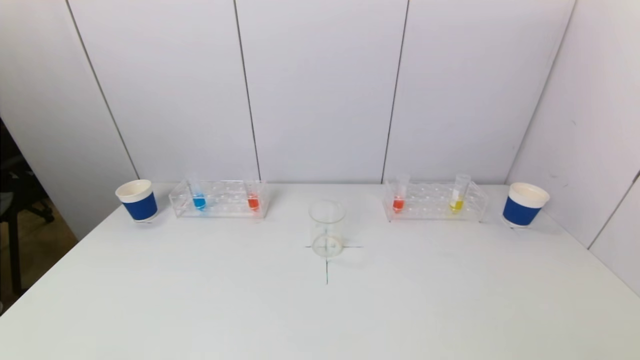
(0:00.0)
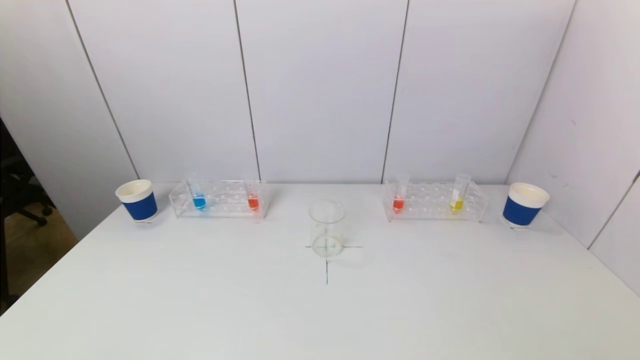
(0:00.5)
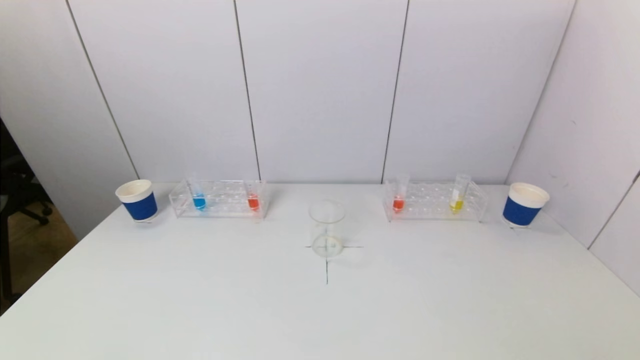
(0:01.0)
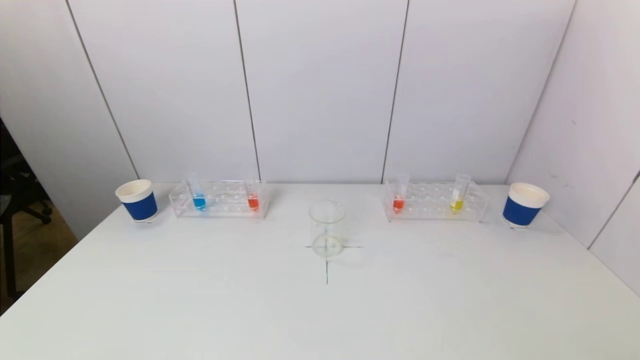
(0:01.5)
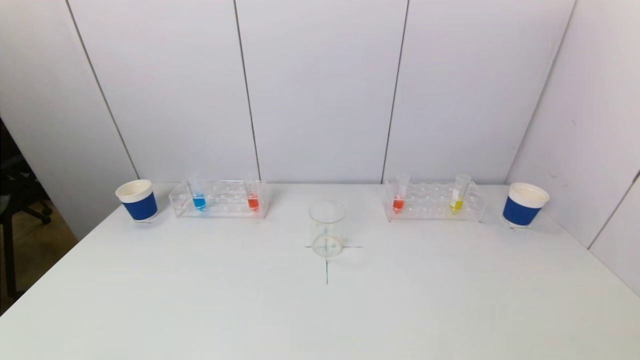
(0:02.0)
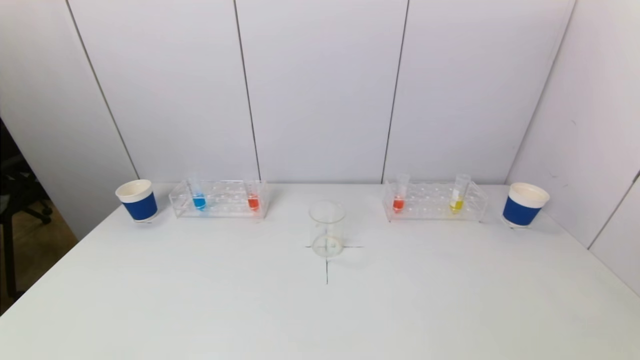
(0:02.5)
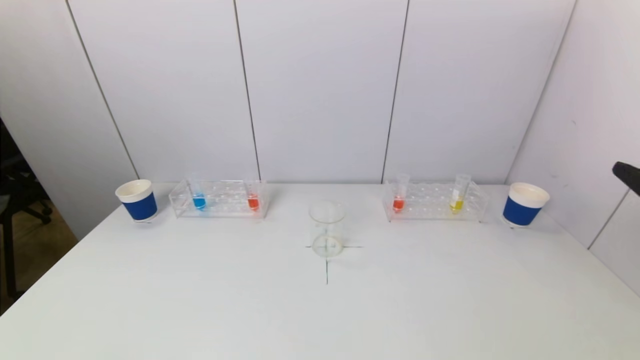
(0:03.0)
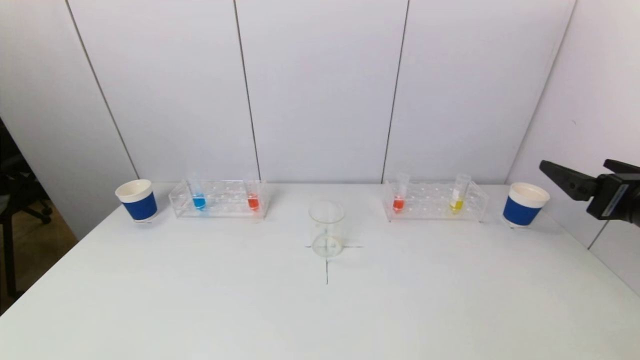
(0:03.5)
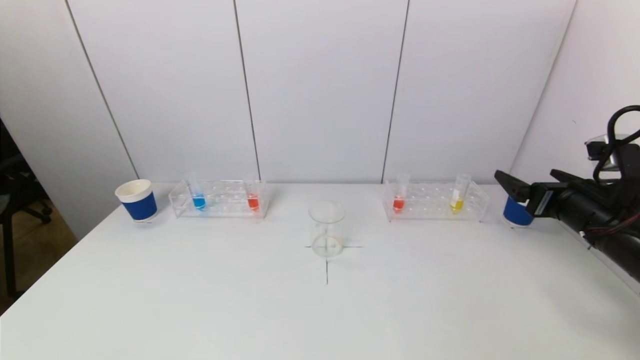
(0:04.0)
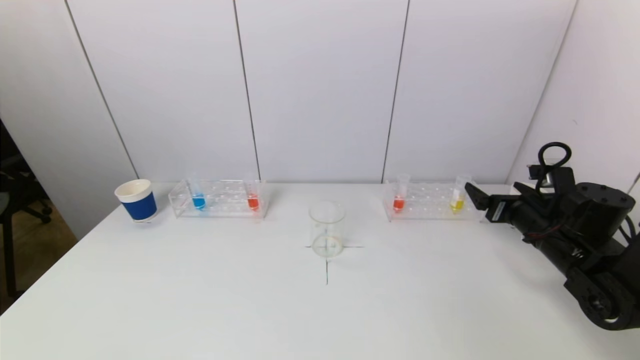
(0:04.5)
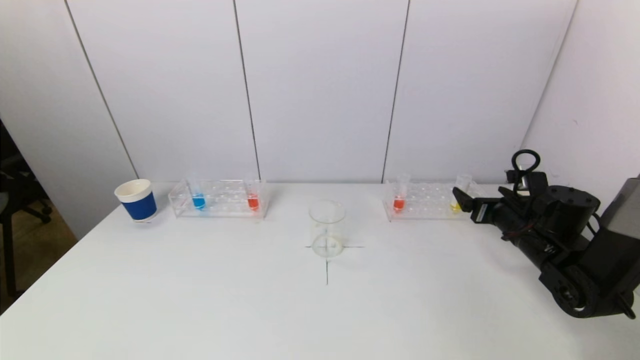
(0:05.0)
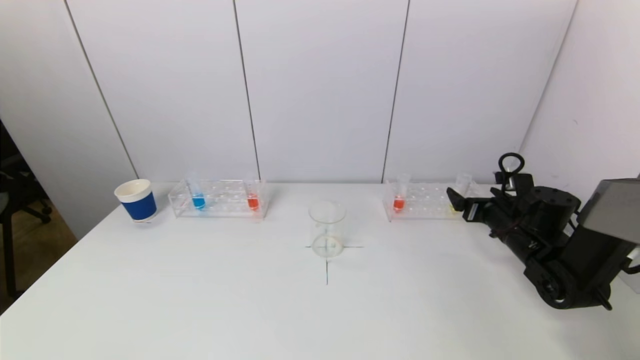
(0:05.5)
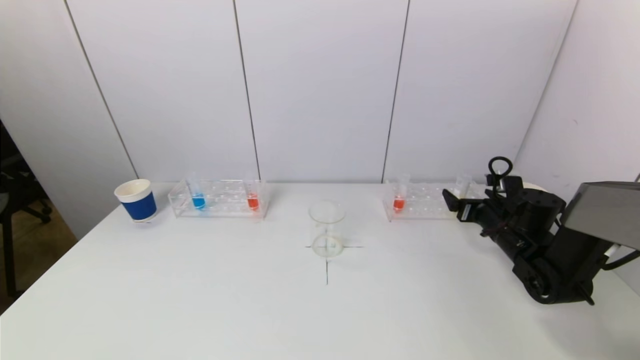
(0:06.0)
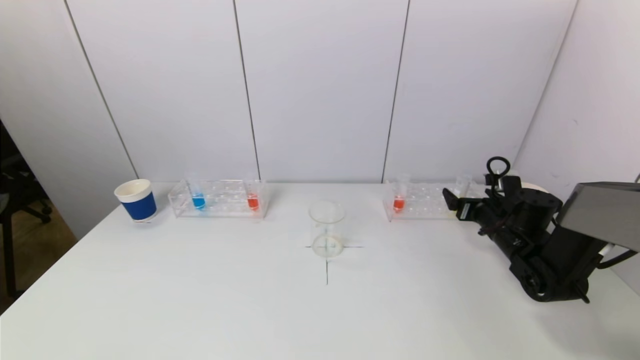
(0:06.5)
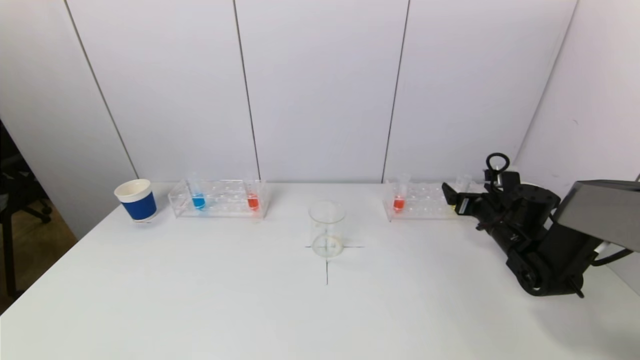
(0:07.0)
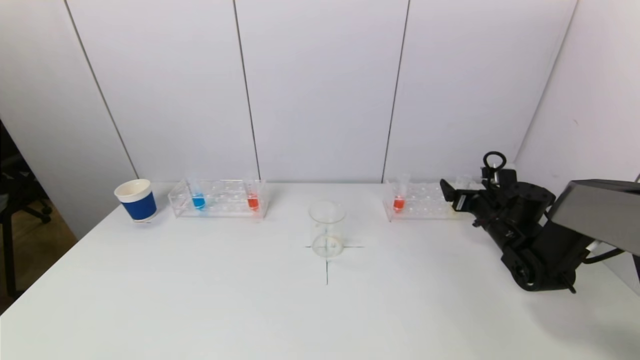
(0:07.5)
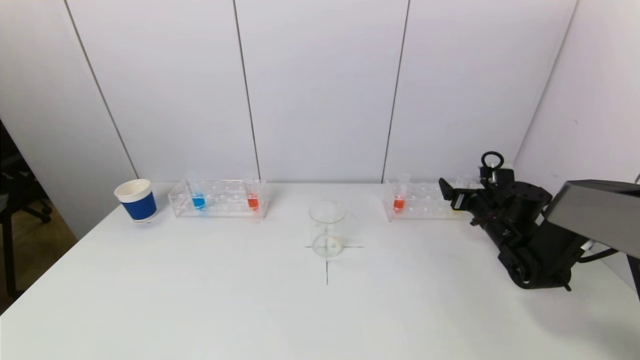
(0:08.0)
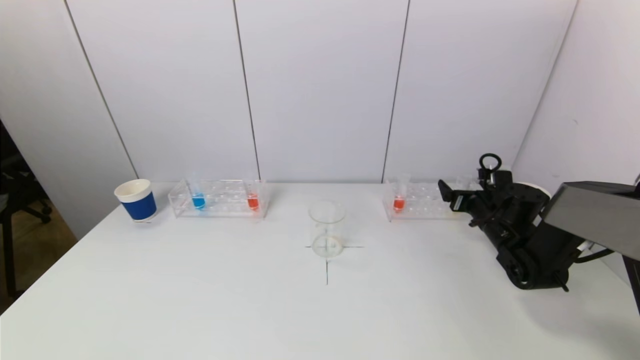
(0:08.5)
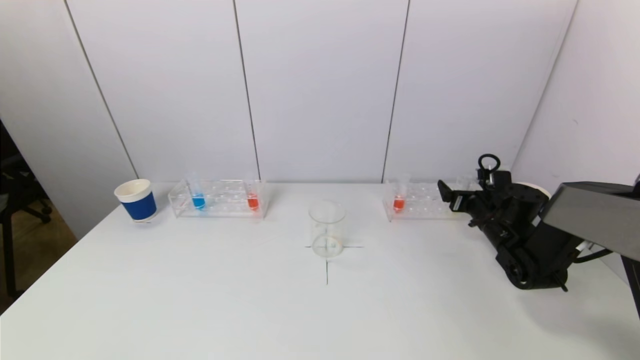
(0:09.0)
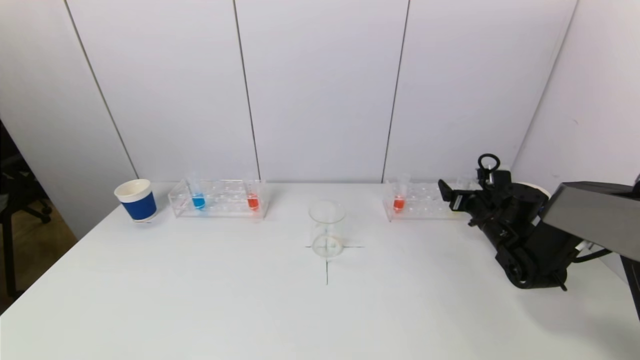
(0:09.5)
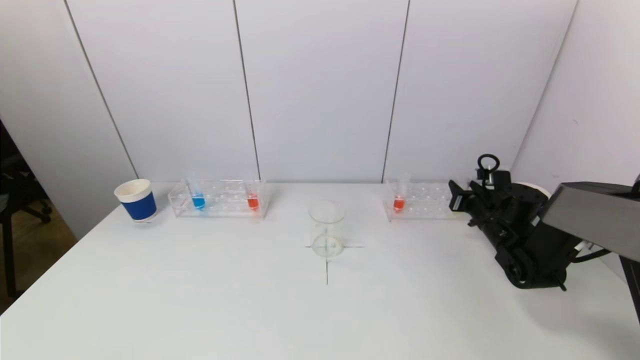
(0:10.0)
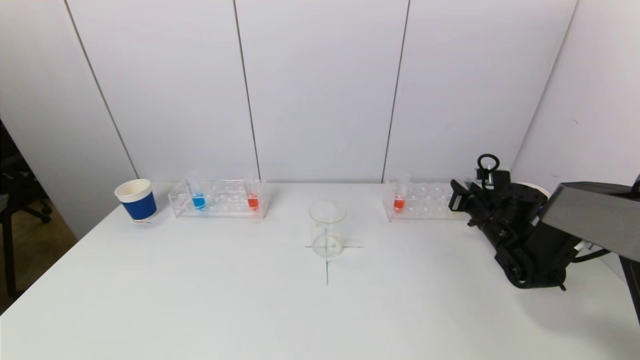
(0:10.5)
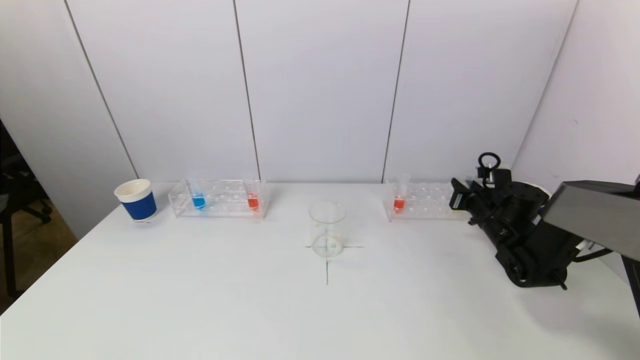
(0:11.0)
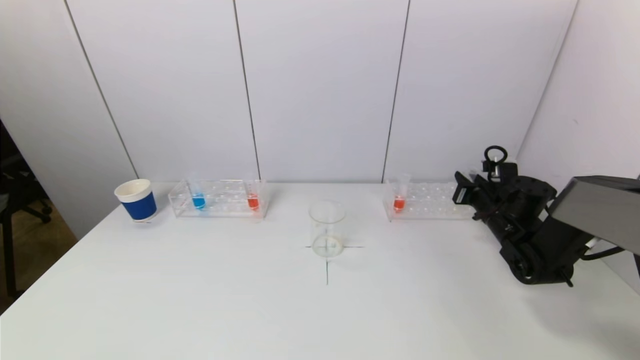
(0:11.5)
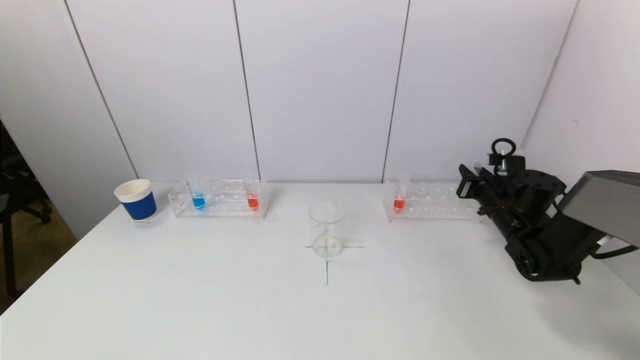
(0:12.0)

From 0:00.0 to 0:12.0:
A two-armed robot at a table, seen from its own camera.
Task of the whole recording: pick up a test tube with pigment on left test tube rack and a test tube with pigment on right test tube rack by grippers and pour them into the beaker.
Step, from 0:00.0 to 0:10.5: Grasp the yellow reagent with the right gripper.
From 0:02.0 to 0:04.0: The right gripper is displaced forward by roughly 30 cm.
From 0:04.0 to 0:06.0: The right gripper heads downward and forward, covering approximately 15 cm.
From 0:06.0 to 0:08.0: The grippers move only a little.
From 0:08.0 to 0:10.0: The right gripper closes up.
From 0:10.0 to 0:12.0: There are only small adjustments of the grippers.

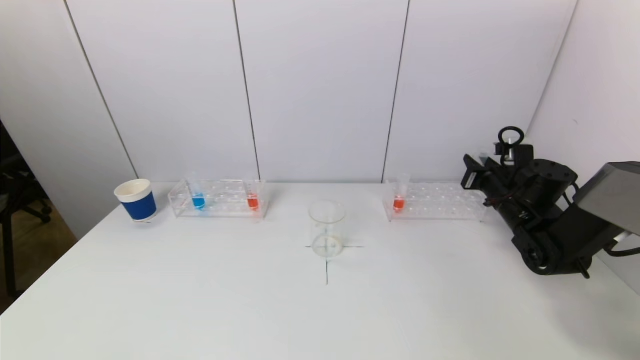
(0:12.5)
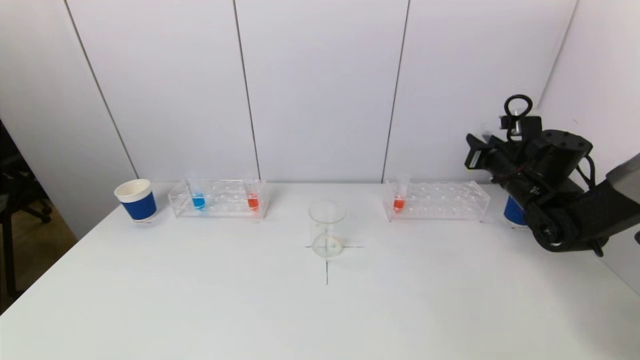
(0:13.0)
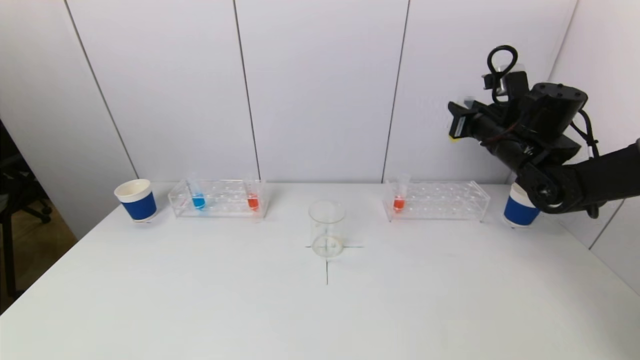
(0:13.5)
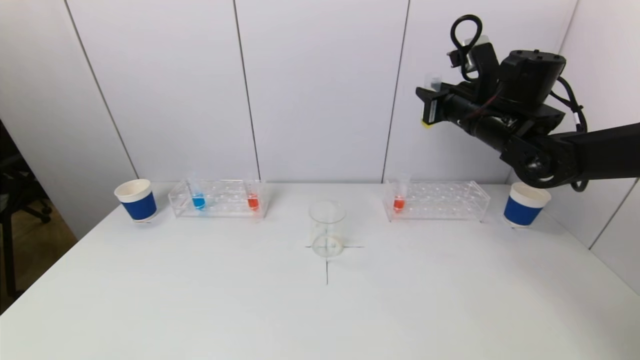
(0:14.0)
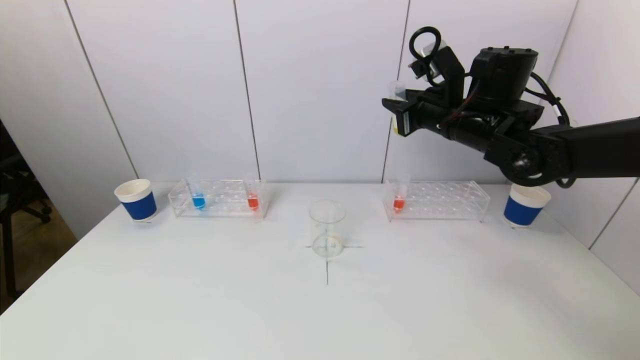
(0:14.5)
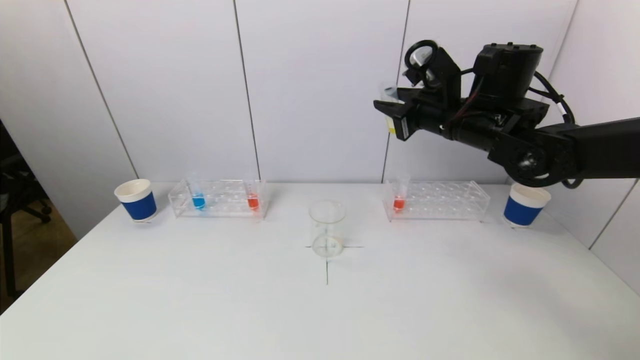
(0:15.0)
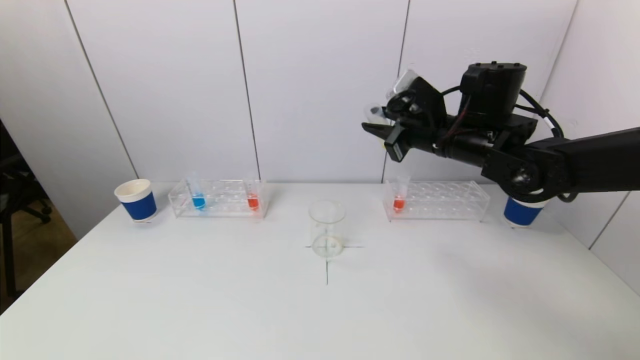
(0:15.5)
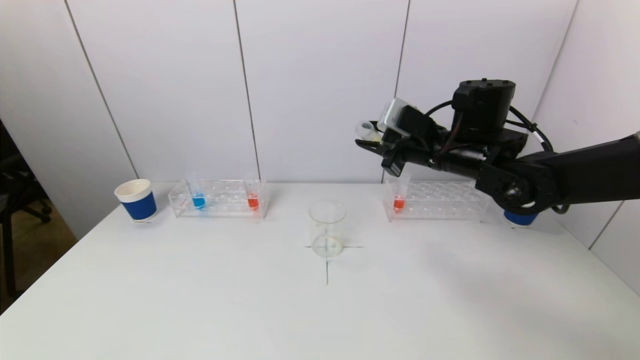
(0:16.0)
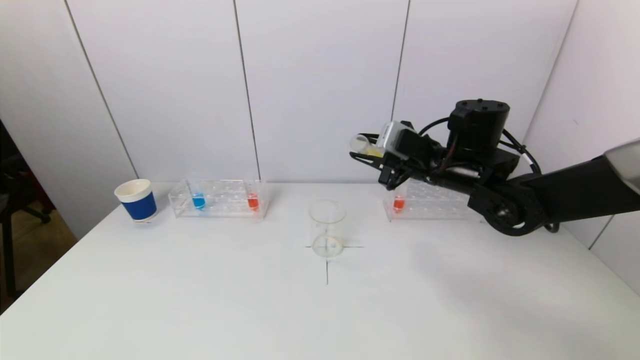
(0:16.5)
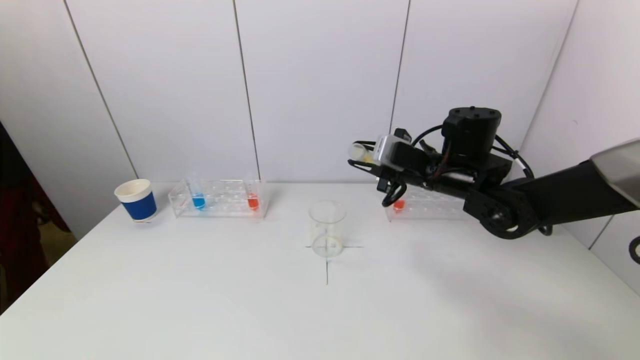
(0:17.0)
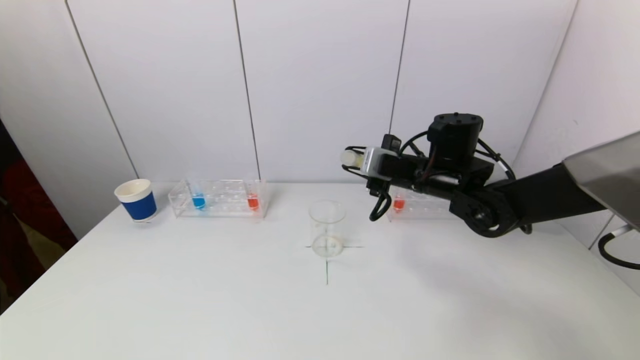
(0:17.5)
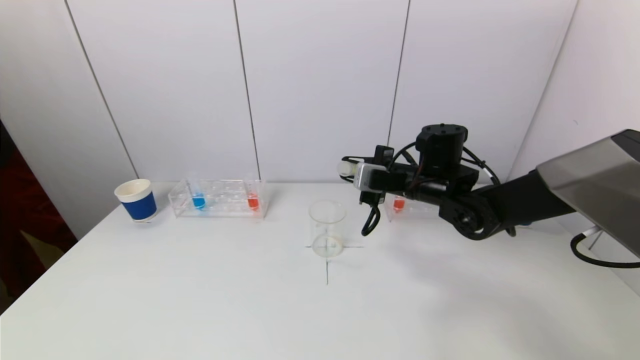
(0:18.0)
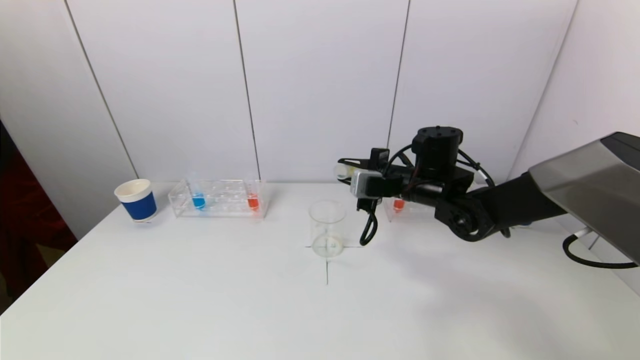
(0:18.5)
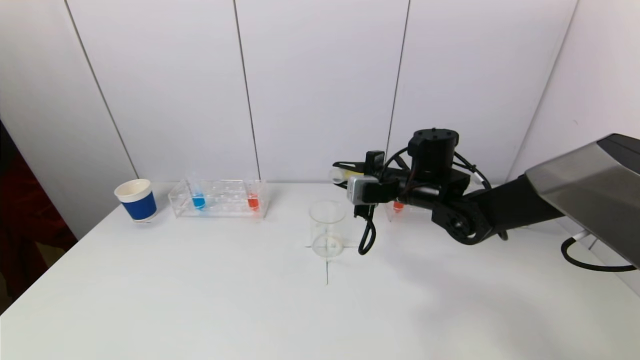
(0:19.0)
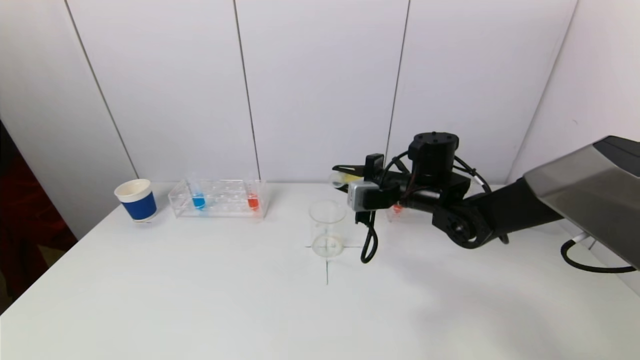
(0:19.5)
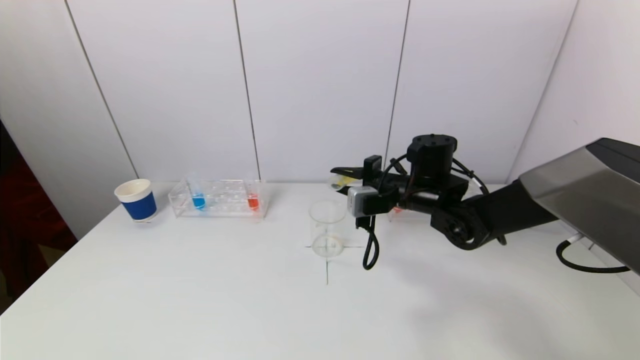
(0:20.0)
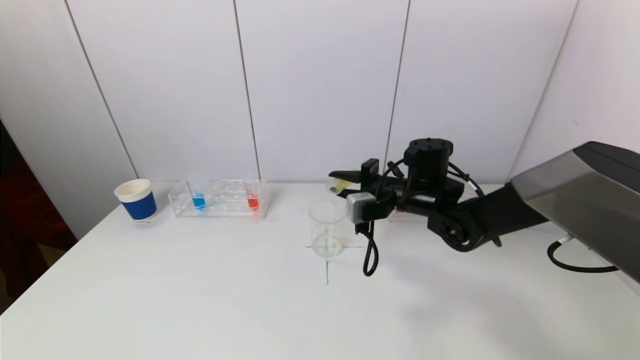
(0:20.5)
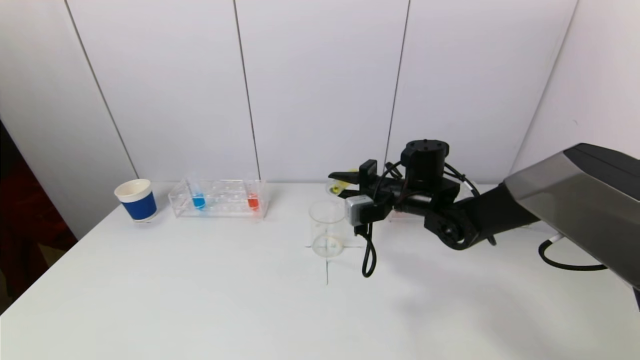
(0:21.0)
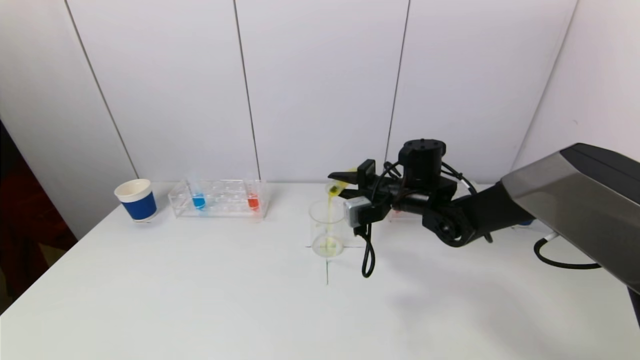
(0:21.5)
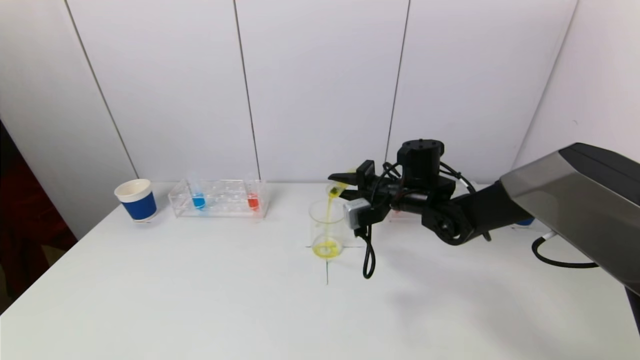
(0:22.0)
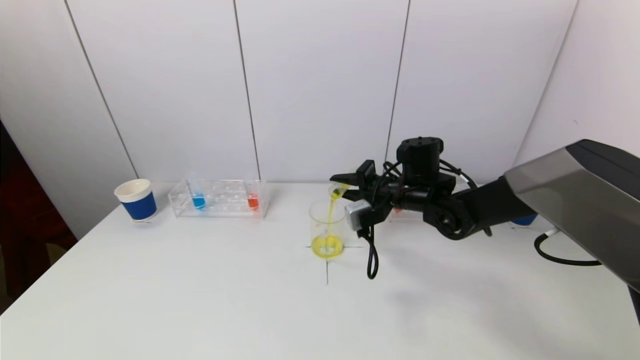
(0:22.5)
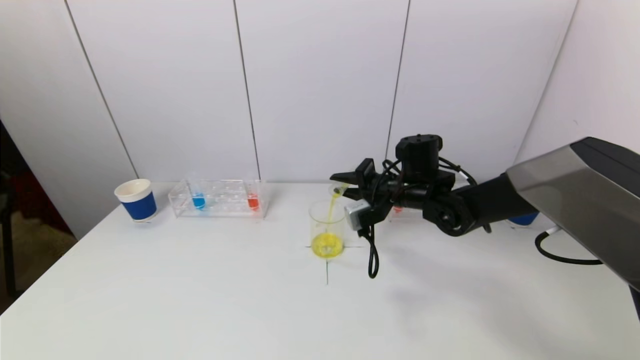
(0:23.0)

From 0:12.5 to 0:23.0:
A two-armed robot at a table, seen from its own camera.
Task of the whole recording: pick up a test tube with pigment on left test tube rack and a test tube with pigment on right test tube rack by grippers and pour them into the beaker.
From 0:12.5 to 0:14.5: The right gripper goes about 20 cm upward and to the left.
From 0:14.5 to 0:16.5: The right gripper travels downward by approximately 5 cm.
From 0:16.5 to 0:19.0: The right gripper travels downward by some 5 cm.
From 0:19.0 to 0:21.0: The grippers move only a little.
From 0:21.0 to 0:23.0: The grippers move only a little.
